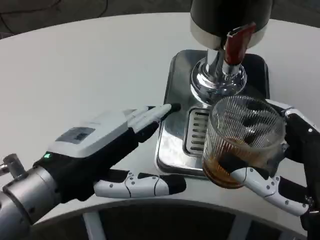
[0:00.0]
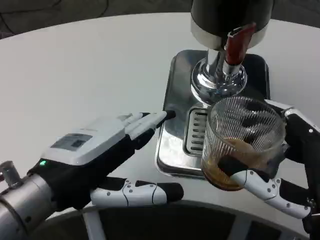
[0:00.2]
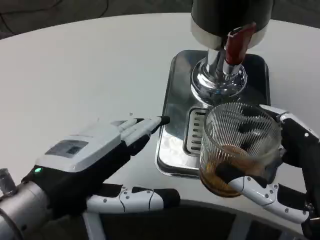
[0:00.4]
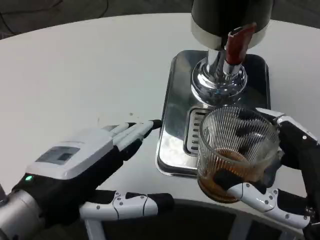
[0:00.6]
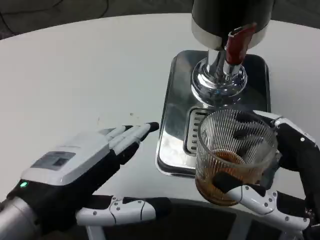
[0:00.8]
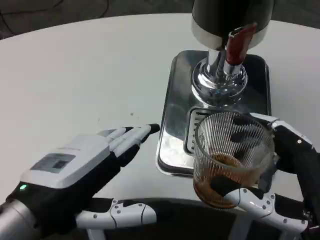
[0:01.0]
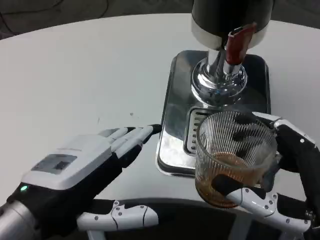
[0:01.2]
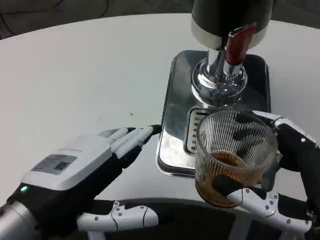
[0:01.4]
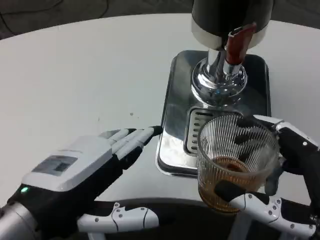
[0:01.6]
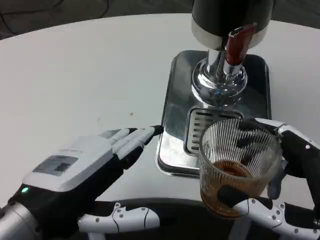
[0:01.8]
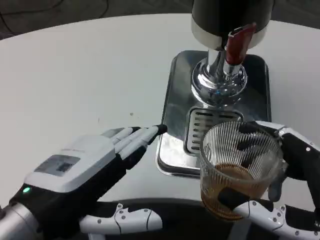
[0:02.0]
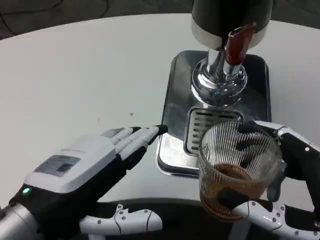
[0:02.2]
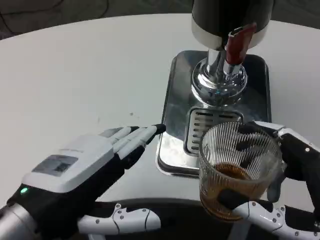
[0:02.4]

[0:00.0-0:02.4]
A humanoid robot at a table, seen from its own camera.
Task of the whole recording: Grasp the cup under the faucet to collect the drink, then remove the cup.
0:01.2 to 0:02.4: The hands stay close to where they were, moving slightly.

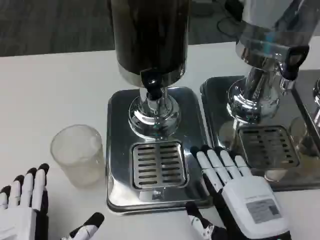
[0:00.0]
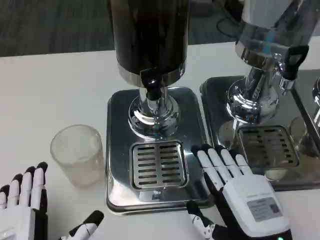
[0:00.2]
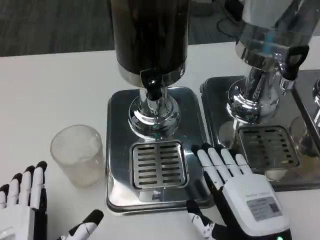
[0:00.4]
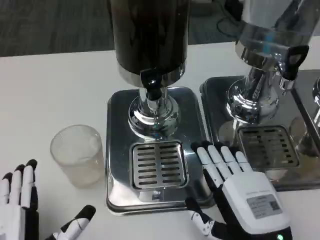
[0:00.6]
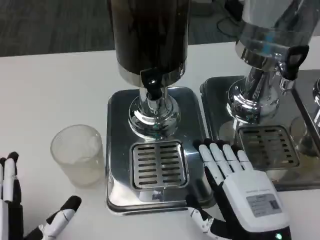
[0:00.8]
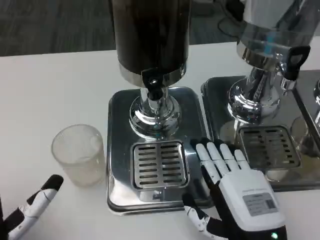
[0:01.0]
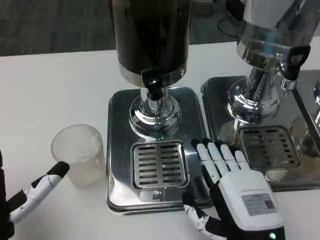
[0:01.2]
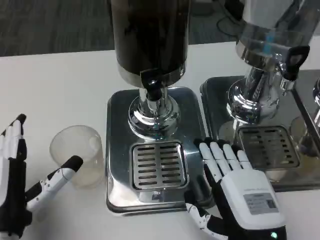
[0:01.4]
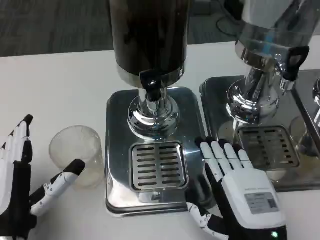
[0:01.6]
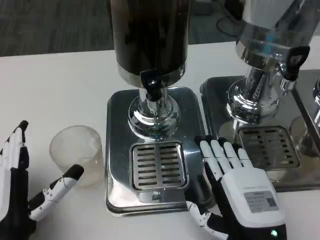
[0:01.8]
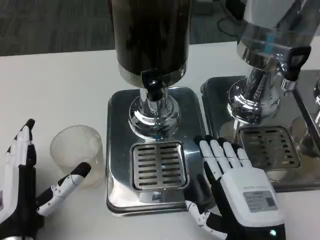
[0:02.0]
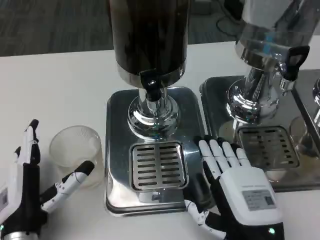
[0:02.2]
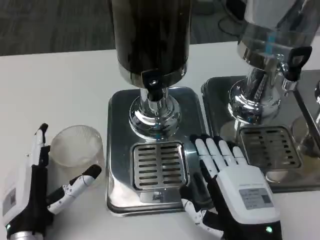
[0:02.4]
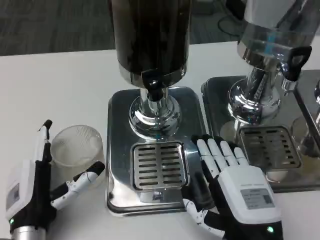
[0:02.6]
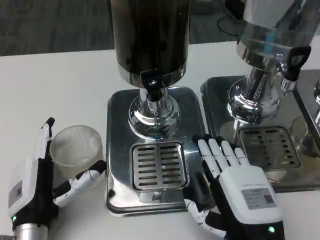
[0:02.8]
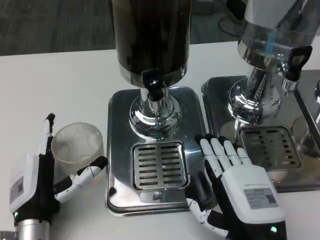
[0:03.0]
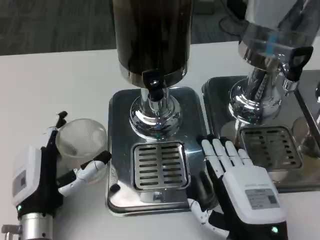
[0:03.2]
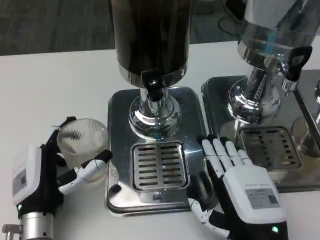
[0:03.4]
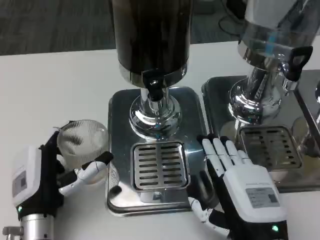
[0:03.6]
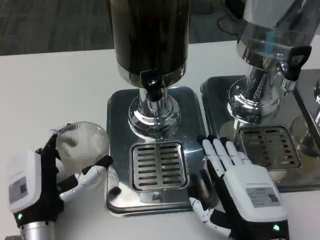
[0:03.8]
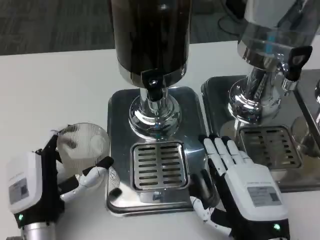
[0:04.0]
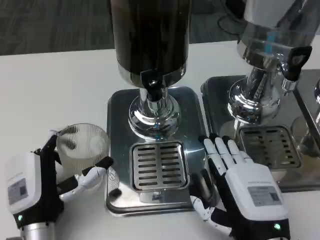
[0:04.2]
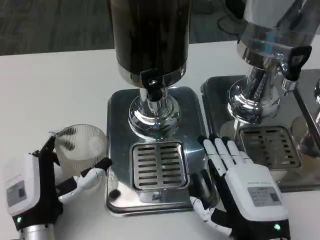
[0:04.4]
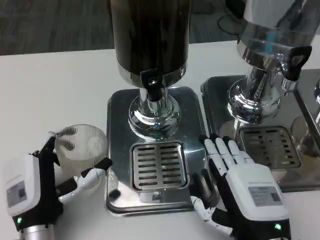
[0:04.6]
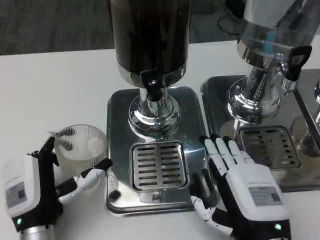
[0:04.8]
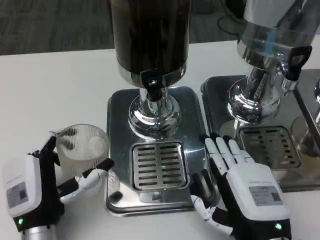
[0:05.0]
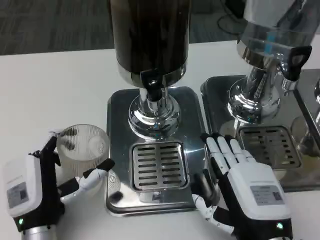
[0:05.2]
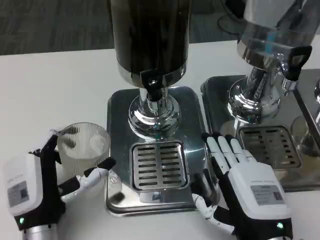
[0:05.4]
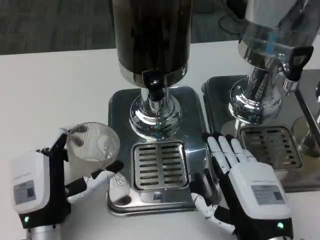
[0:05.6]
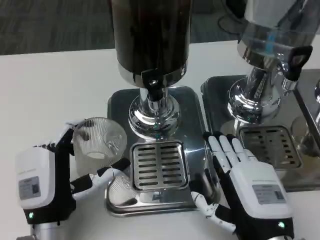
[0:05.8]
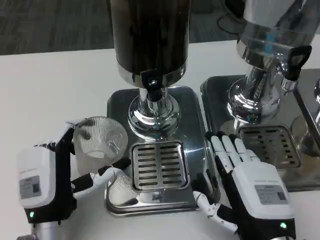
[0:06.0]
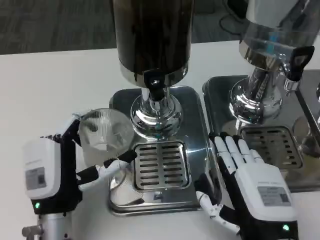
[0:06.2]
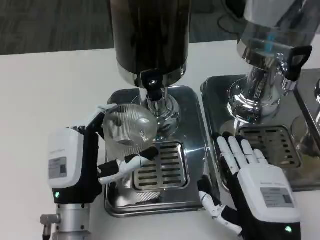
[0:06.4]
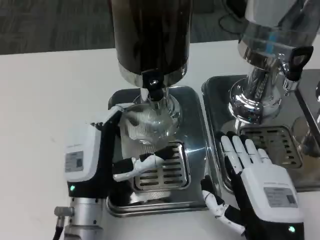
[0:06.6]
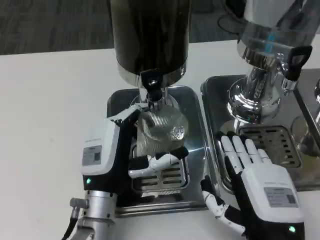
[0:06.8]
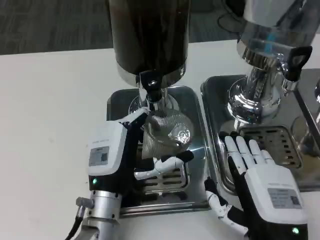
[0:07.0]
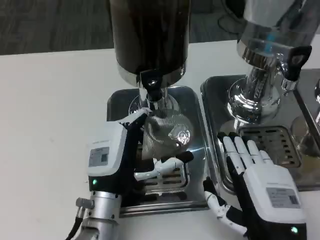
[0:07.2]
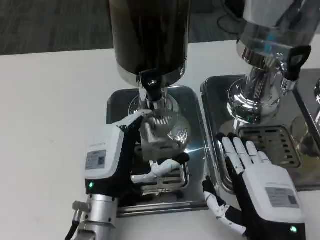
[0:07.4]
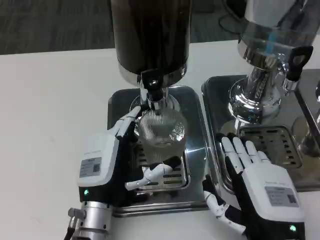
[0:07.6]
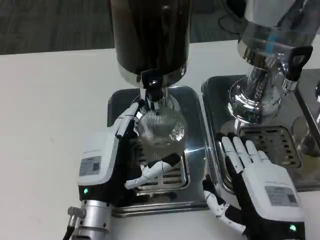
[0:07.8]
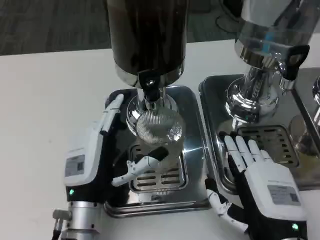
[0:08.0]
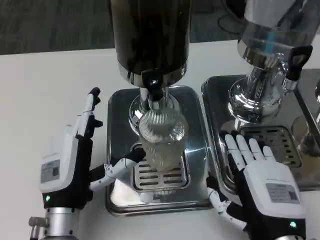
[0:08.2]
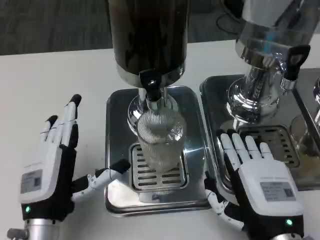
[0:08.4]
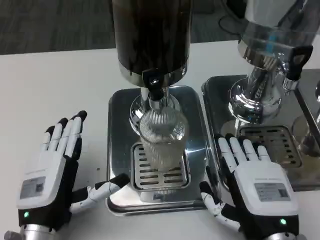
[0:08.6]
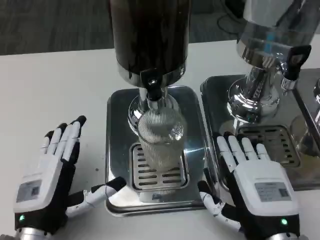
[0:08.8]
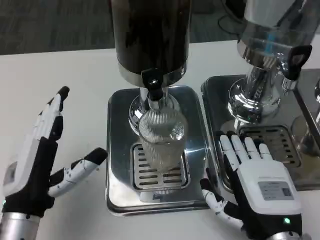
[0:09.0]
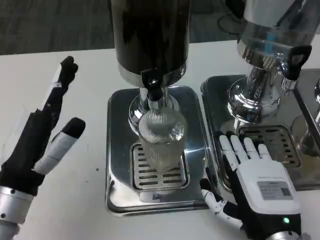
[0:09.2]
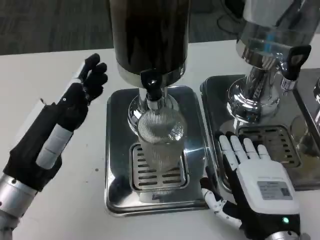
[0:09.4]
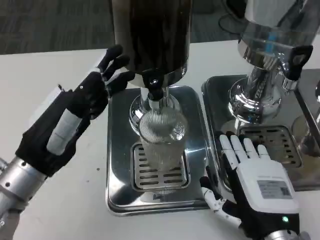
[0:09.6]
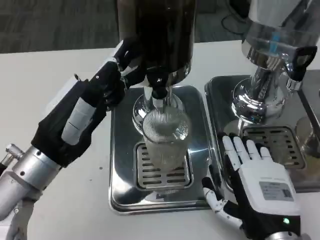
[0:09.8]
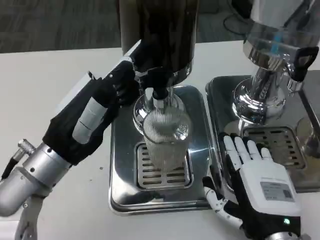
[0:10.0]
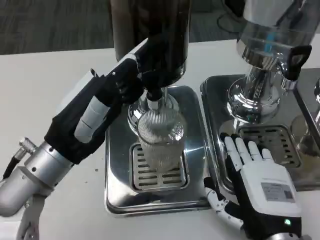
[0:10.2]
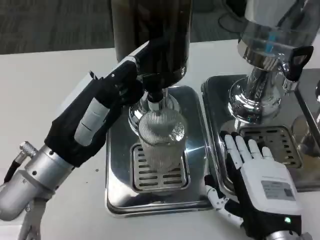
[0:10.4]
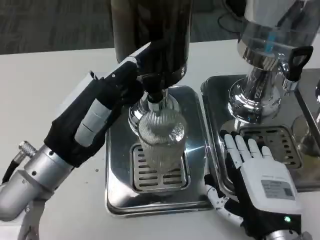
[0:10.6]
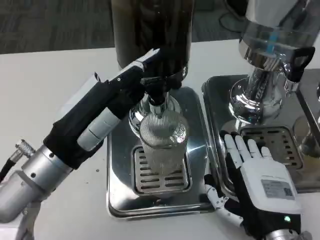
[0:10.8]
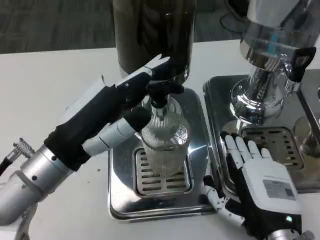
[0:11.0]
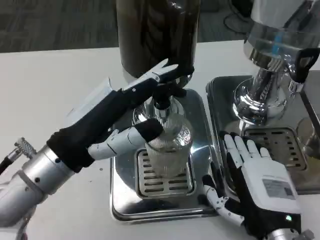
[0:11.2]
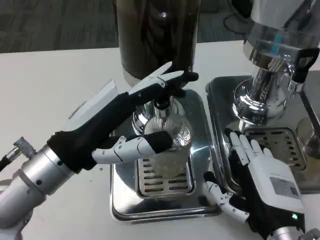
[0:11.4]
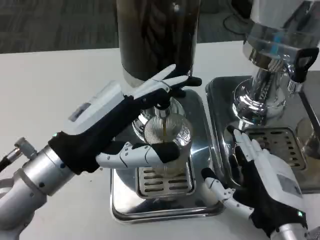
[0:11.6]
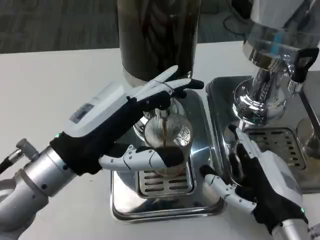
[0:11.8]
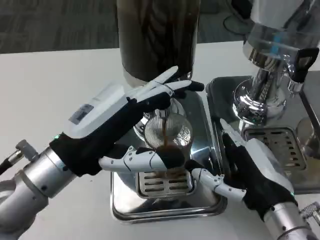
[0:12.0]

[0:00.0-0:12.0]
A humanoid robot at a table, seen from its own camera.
Task of the whole recording: Grasp the cup under the faucet to collect the drink, then remove the cup.
0:00.0 to 0:01.6: The left hand moves forward, approximately 5 cm.
0:01.6 to 0:03.0: The left hand moves some 5 cm.
0:03.0 to 0:04.4: The hands make only small movements.
0:04.4 to 0:06.0: The hands stay close to where they were, moving slightly.
0:06.0 to 0:07.6: The left hand heads to the right, covering about 5 cm.
0:07.6 to 0:09.0: The left hand moves to the left and upward, roughly 10 cm.
0:09.0 to 0:10.4: The left hand moves upward and forward, roughly 10 cm.

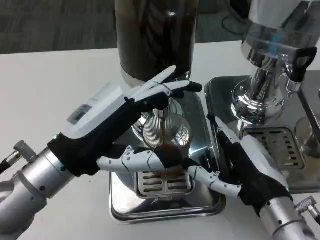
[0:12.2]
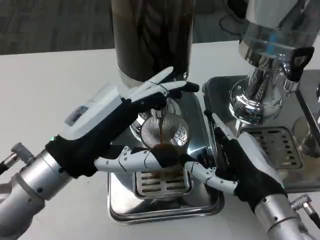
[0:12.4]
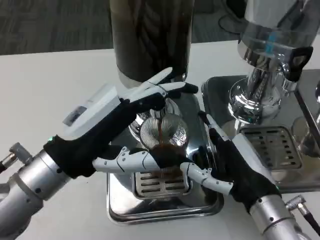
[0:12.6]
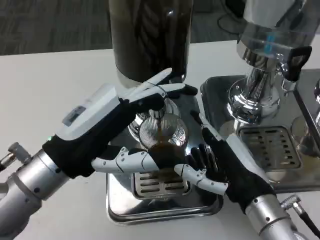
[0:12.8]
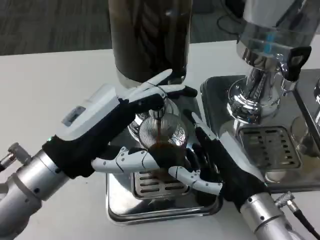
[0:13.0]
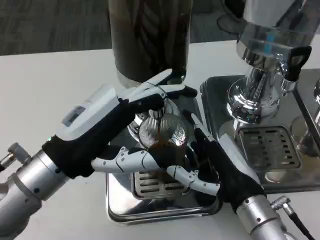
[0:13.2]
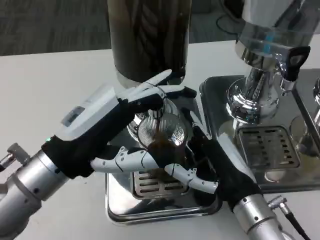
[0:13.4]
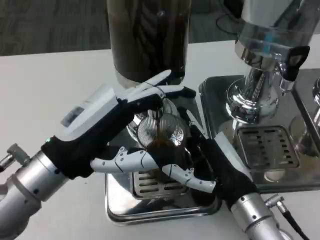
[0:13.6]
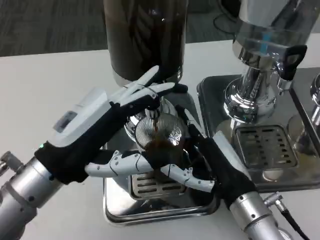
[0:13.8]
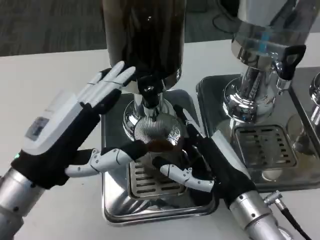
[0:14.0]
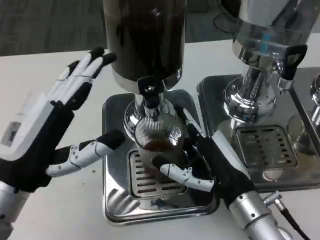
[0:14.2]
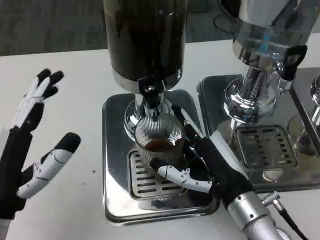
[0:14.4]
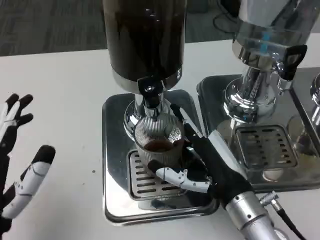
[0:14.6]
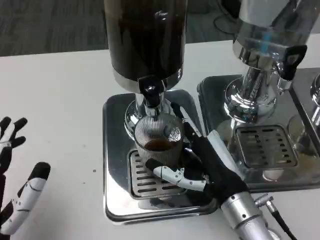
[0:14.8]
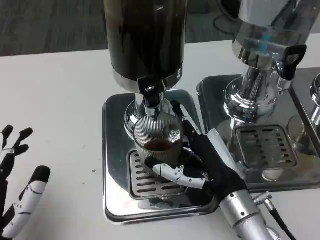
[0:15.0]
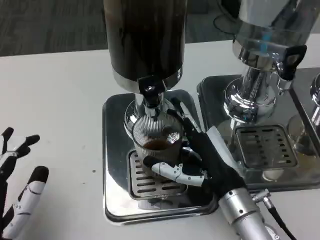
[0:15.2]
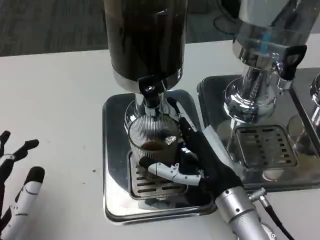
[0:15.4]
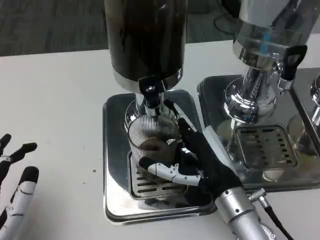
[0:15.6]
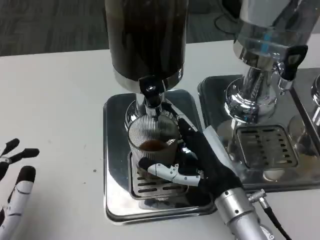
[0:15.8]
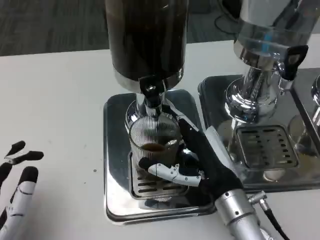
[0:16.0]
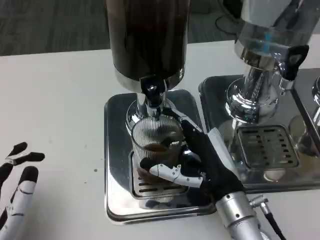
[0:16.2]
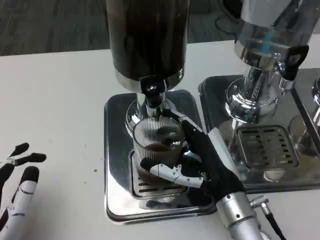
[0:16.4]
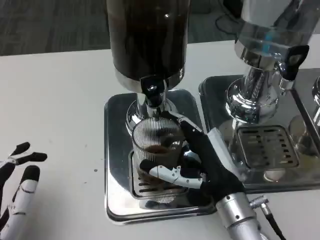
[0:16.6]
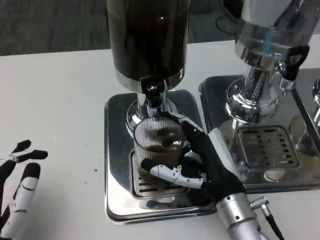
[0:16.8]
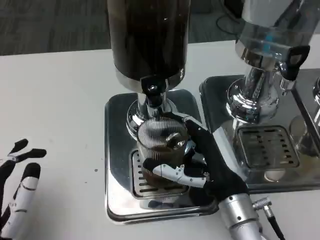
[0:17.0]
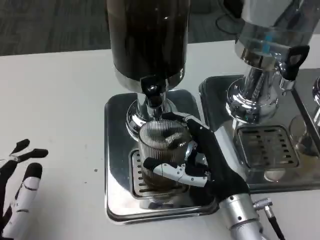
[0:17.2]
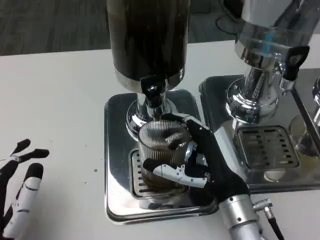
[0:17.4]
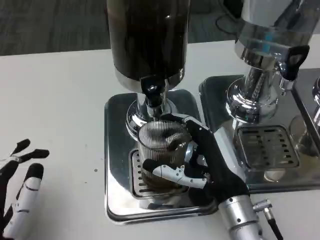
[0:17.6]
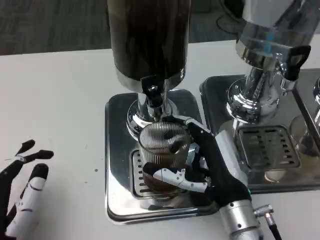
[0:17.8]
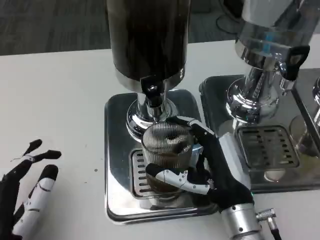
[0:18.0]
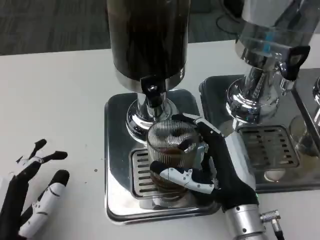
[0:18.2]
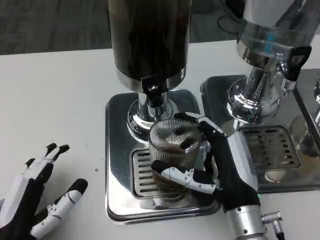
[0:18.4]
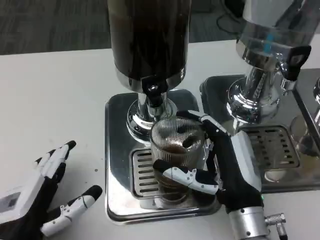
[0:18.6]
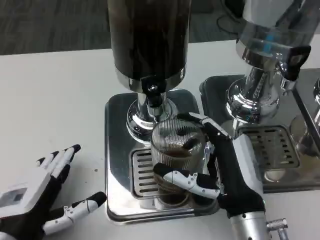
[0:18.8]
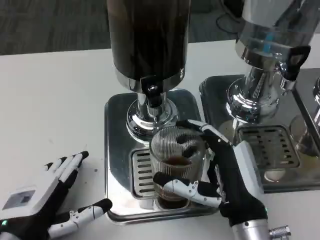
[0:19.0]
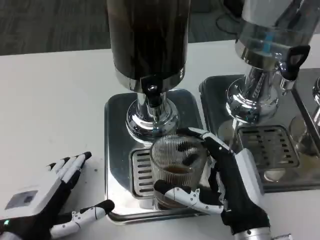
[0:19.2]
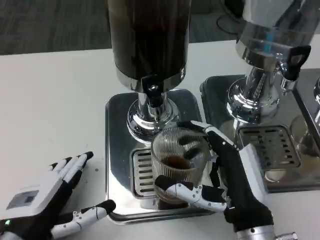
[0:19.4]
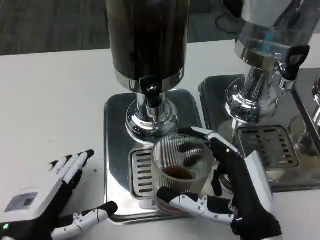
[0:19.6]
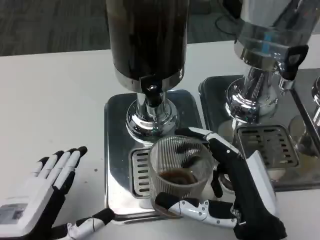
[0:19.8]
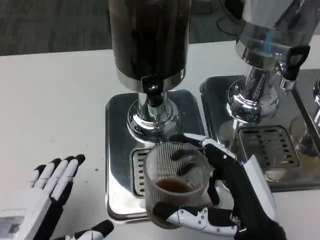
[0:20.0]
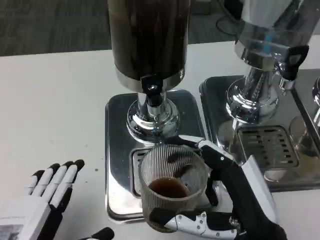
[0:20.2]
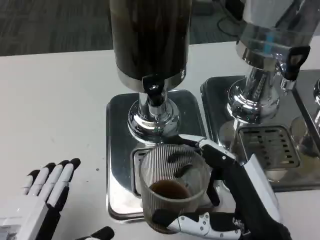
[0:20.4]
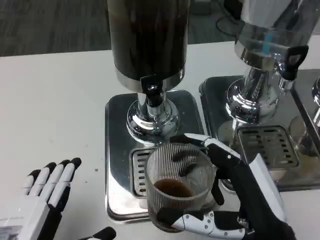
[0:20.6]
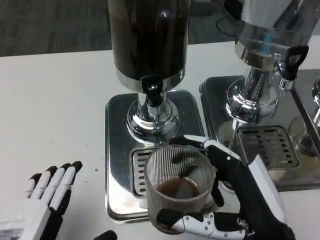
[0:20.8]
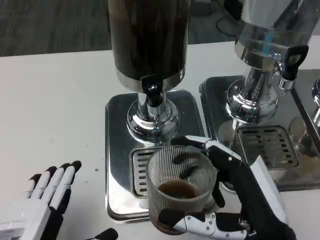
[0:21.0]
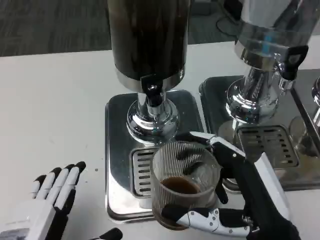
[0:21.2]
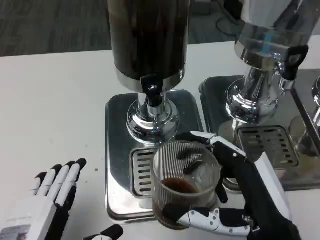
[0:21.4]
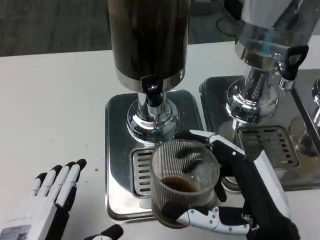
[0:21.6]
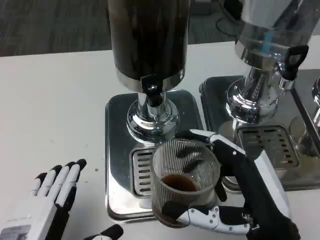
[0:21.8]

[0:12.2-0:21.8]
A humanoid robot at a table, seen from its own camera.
Task of the whole recording: Grasp the cup under the faucet to collect the drink, then remove the cup.
0:13.8 to 0:15.4: The left hand heads downward and backward, covering some 15 cm.
0:18.6 to 0:20.2: The two hands go roughly 5 cm backward.
0:20.2 to 0:21.8: The hands stay close to where they were, moving slightly.
